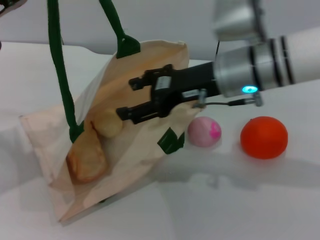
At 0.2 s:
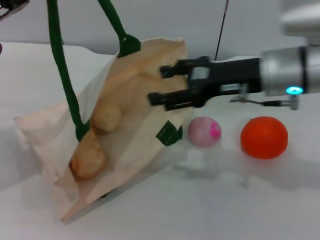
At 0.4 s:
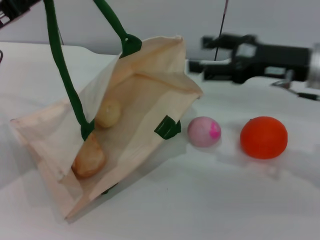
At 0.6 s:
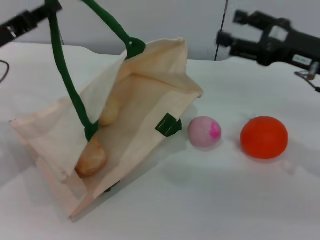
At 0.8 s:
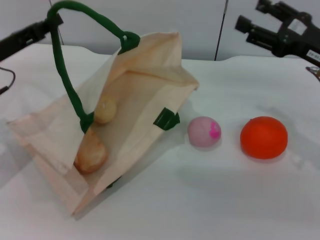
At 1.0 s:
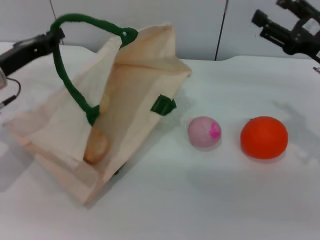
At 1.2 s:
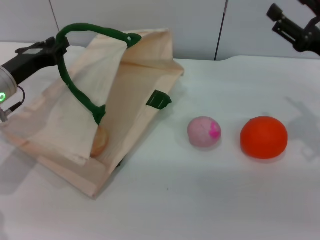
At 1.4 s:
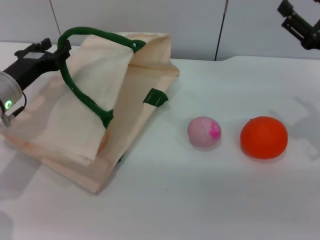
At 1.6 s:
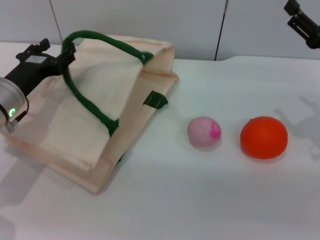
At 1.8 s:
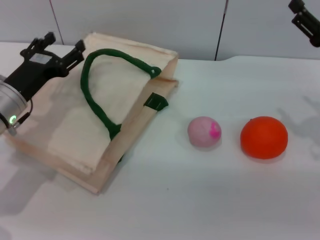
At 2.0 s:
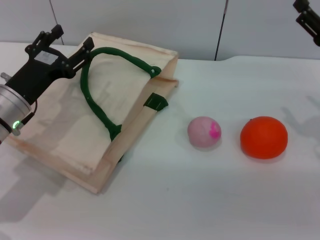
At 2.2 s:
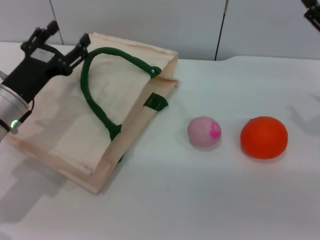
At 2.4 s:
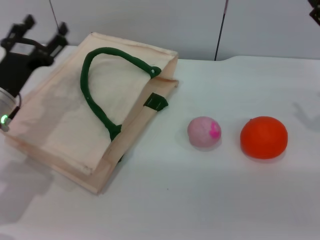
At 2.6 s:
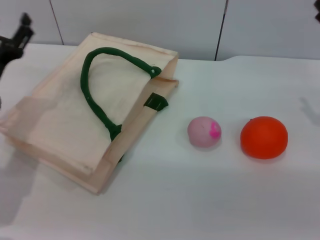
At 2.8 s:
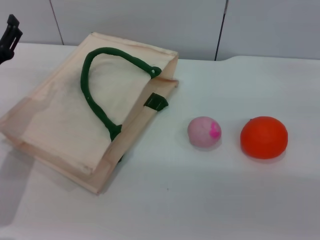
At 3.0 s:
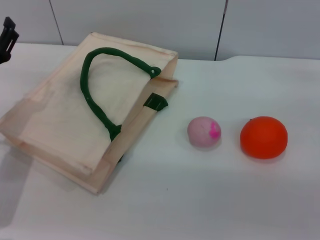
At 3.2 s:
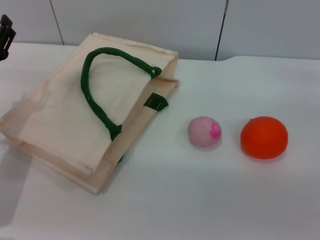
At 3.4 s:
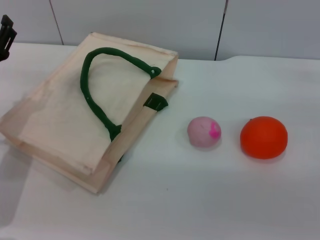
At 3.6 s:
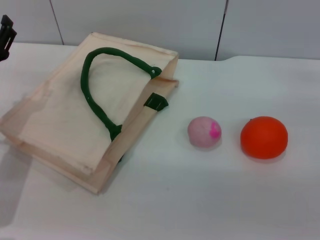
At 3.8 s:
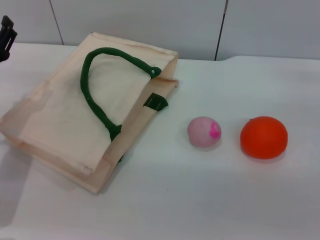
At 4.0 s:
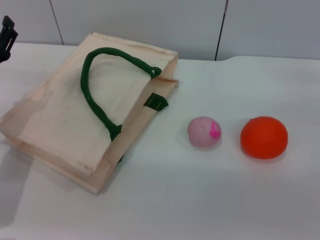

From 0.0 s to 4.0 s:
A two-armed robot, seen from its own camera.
Task of the whole recording: pick up the bread and egg yolk pastry from the table and place it in the white handbag.
Step, from 0.0 s to 2.2 s: Lower the woven bag with the left gripper to close it.
From 0.0 s to 1.4 s: The left gripper is displaced downward by about 10 cm. The right gripper is displaced to the right by some 20 cm.
From 1.4 s to 2.6 s: The left gripper opens up.

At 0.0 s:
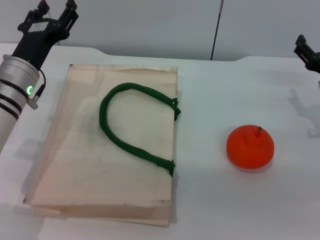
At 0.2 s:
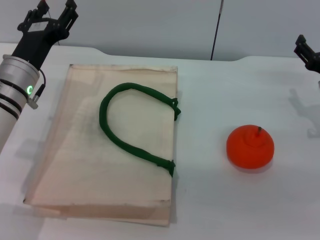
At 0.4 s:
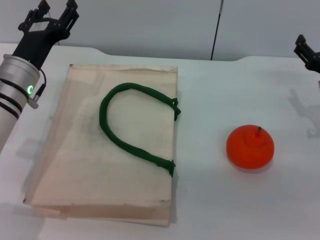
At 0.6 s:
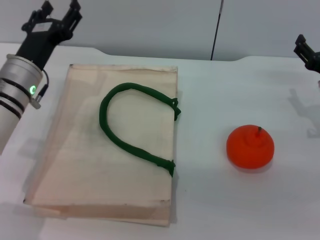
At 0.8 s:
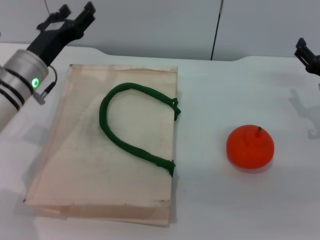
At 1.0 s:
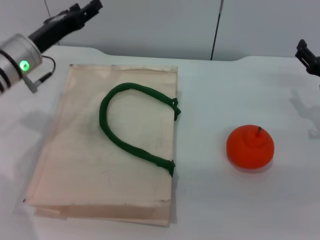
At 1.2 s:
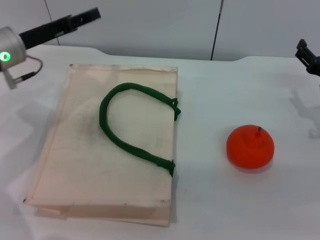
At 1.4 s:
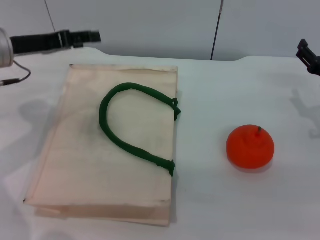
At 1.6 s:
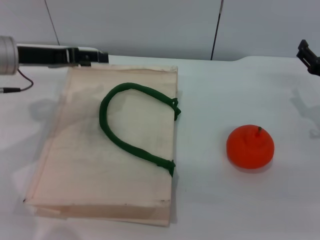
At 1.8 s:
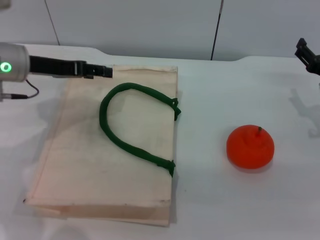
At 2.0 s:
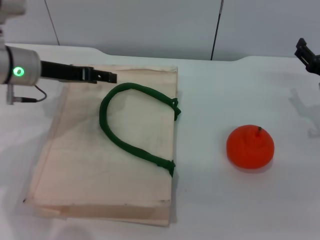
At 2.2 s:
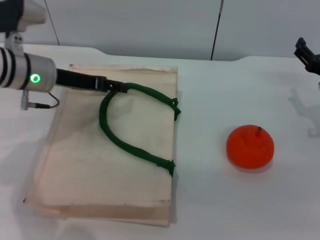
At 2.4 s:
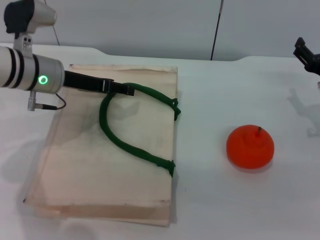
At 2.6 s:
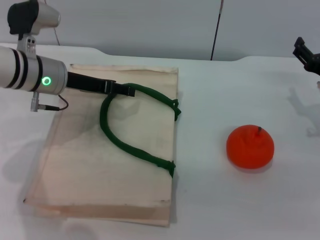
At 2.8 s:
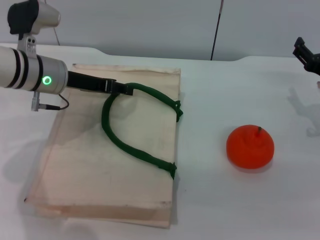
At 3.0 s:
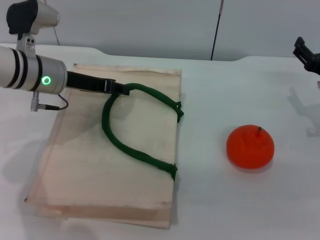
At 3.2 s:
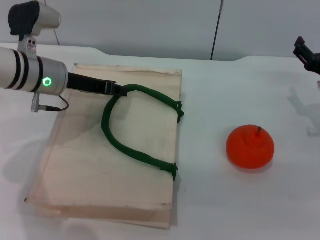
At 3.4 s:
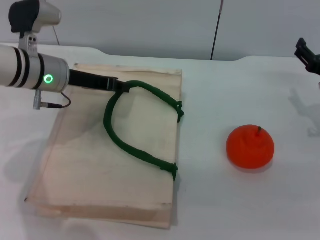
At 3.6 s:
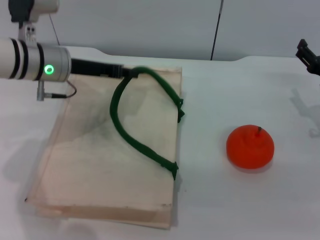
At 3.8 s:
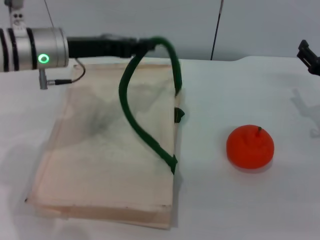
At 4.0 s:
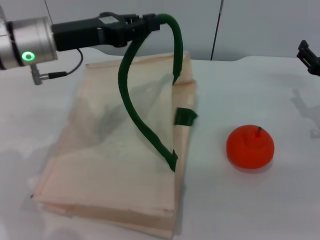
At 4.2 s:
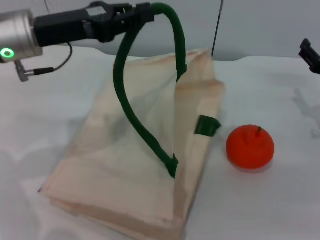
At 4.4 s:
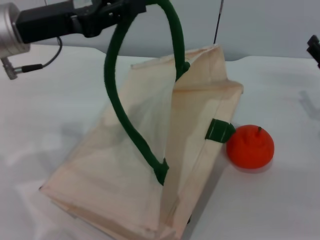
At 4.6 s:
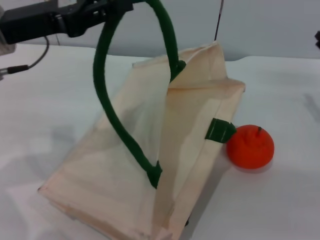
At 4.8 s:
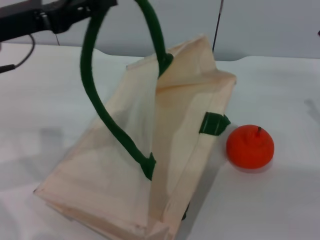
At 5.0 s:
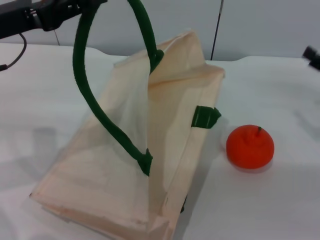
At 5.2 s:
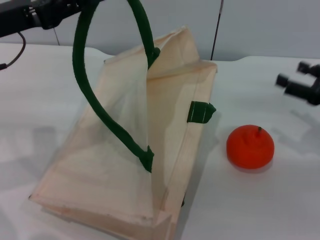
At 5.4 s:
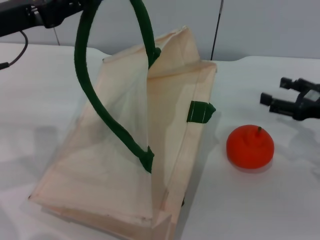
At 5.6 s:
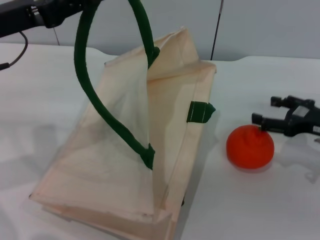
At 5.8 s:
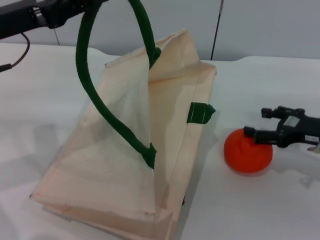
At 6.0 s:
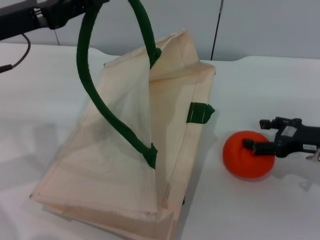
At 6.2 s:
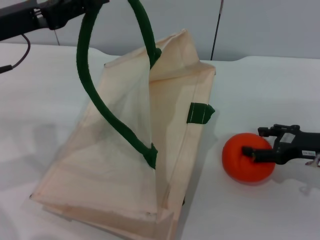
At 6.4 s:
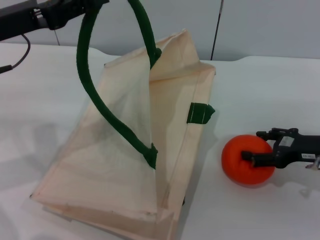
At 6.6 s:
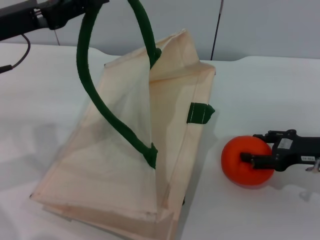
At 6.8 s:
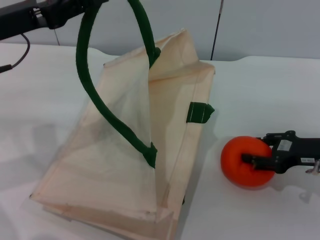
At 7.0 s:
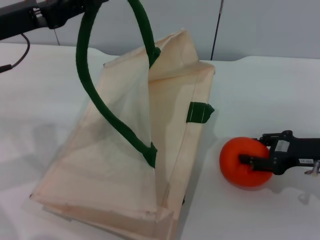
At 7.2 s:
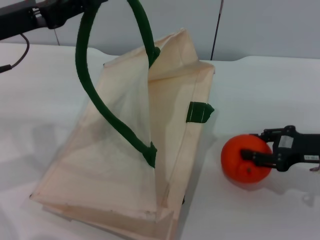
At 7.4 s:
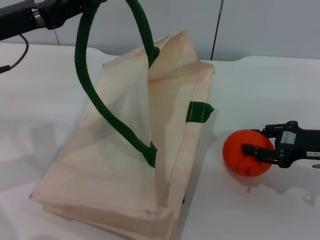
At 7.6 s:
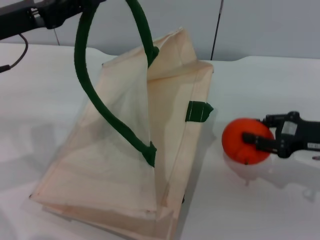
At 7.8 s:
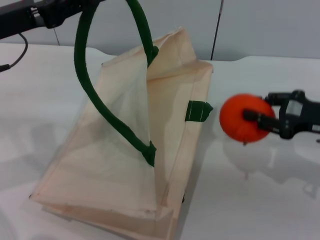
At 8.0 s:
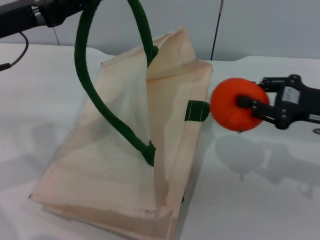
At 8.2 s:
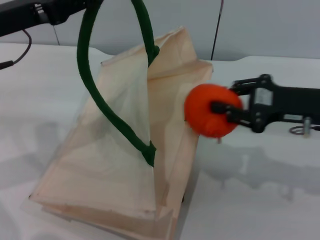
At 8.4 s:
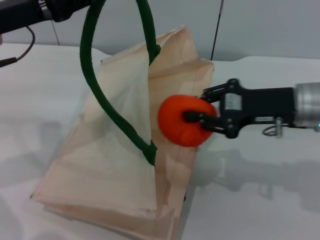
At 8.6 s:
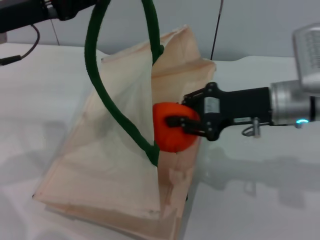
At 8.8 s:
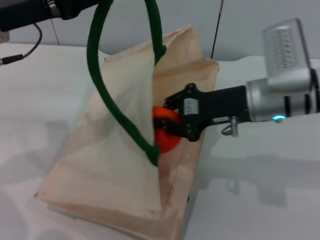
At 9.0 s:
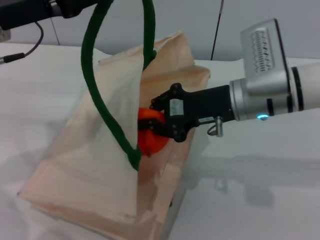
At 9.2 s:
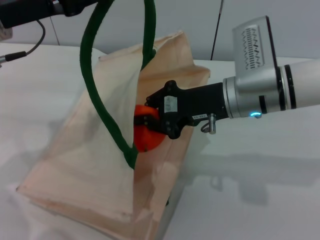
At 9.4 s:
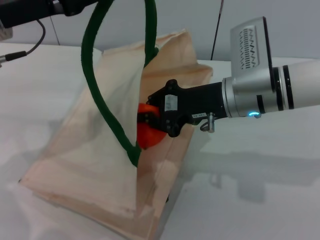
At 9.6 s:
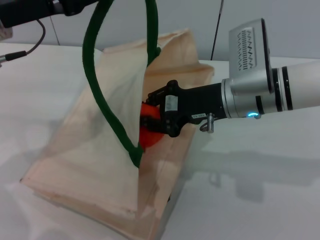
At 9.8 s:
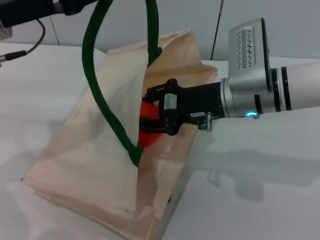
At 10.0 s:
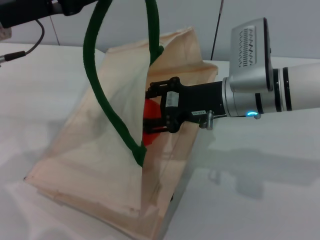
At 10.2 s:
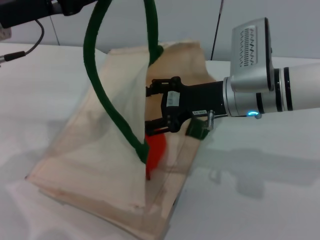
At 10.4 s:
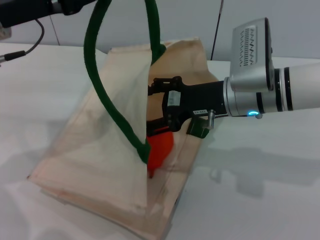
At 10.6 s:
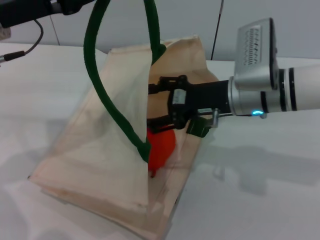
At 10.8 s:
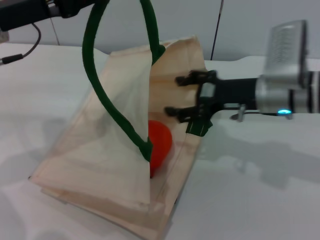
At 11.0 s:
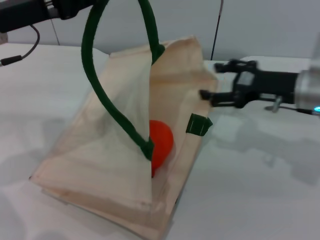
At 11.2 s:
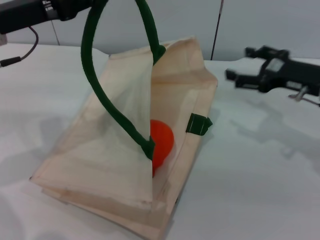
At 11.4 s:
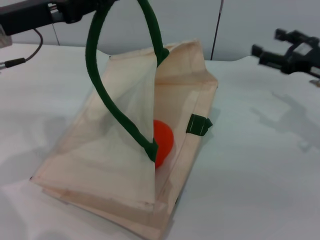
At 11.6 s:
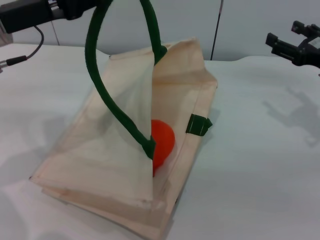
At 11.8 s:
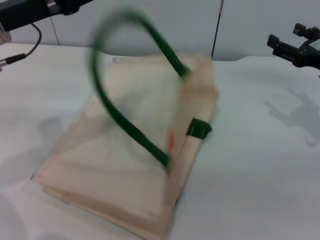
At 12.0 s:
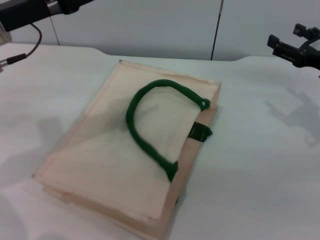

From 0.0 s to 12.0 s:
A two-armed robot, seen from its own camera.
Task of the whole recording: pick up the orange from the table and place it in the white handbag.
Step, from 0.0 s to 4.8 s: Lift the woven bag with the left gripper to open it.
Step, from 5.0 s to 7.4 s: Pick up the orange with the right gripper.
Step, from 7.8 s to 10.2 s: Place the orange into the woven bag with the right gripper.
From 0.0 s to 1.6 s: The left gripper moves upward, some 5 cm.
From 1.6 s to 3.0 s: The left gripper is displaced to the right by about 5 cm, and closes up.
From 3.0 s to 4.4 s: The left gripper shifts about 10 cm upward, and closes its fingers.
From 6.0 s to 7.6 s: The right gripper closes.
From 7.6 s to 9.0 s: The right gripper is displaced to the left by approximately 15 cm, and closes.
From 9.0 s to 10.4 s: The right gripper opens its fingers.
From 10.4 s to 12.0 s: The right gripper goes about 20 cm to the right.

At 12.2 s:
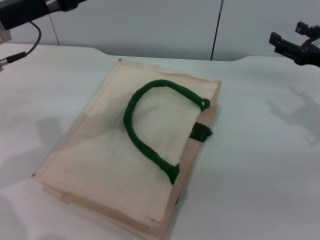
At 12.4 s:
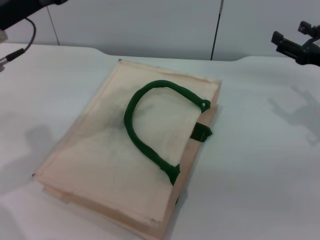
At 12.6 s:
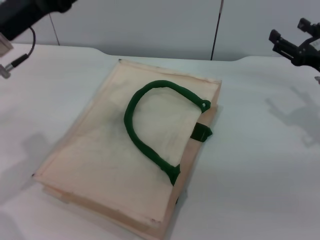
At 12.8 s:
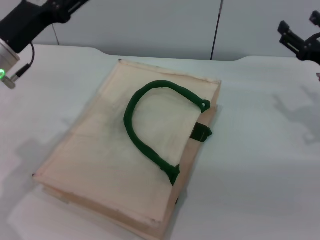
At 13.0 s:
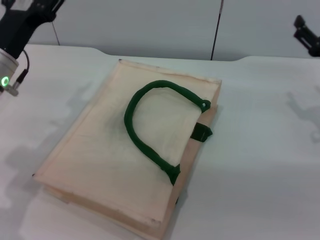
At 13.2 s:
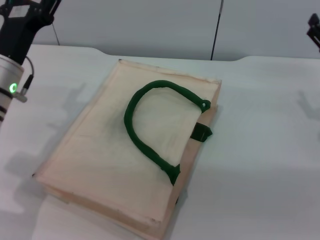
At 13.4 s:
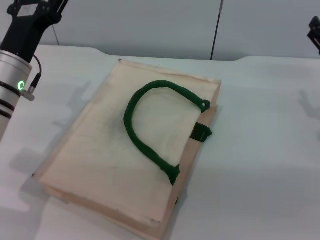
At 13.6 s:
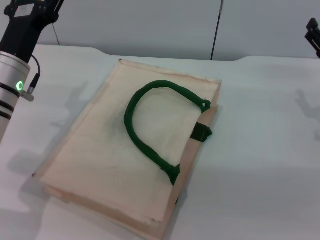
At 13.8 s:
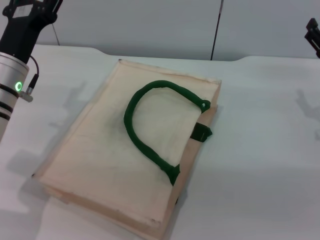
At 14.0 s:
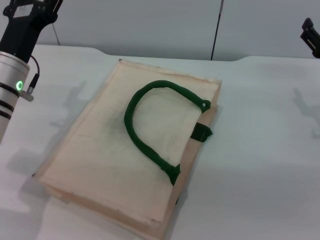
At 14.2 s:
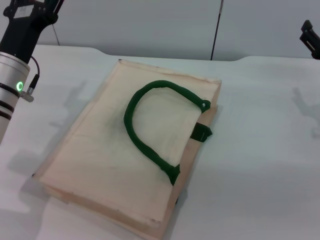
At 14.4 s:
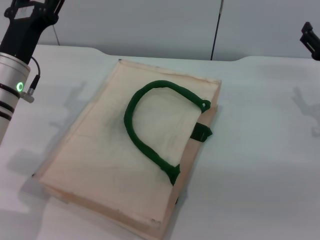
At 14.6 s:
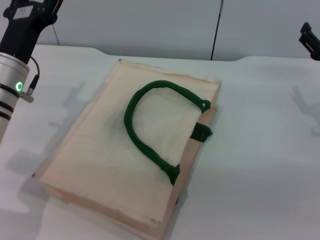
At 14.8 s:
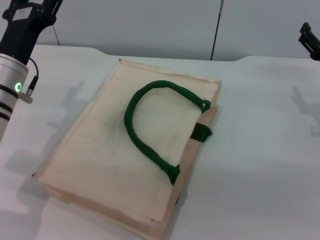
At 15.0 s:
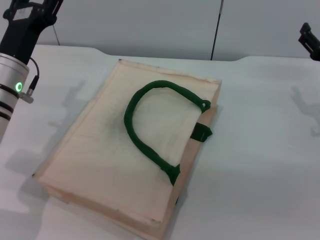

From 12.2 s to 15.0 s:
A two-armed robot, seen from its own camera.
Task of the whole recording: pick up the orange from the table and place it in the white handbag.
From 12.2 s to 13.6 s: The left gripper travels downward by about 10 cm, and opens.
From 13.6 s to 15.0 s: Neither gripper changes place.
